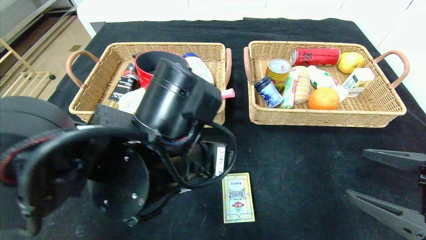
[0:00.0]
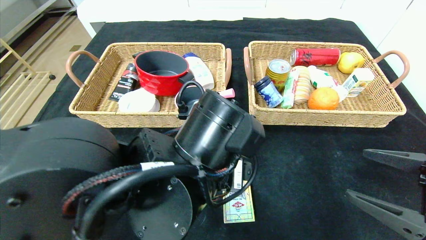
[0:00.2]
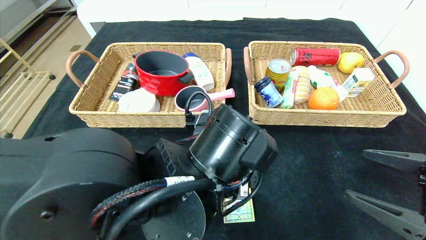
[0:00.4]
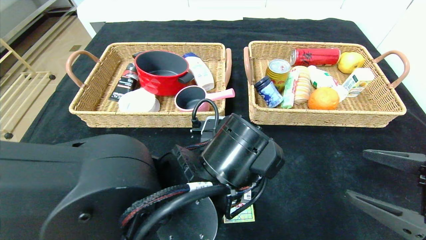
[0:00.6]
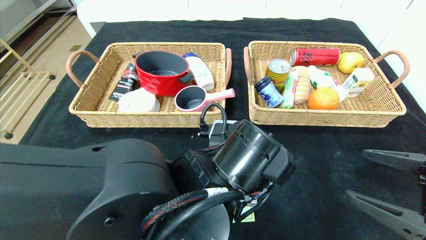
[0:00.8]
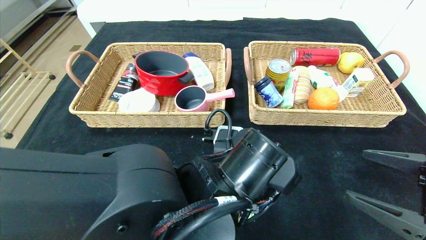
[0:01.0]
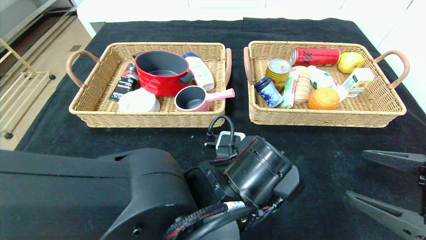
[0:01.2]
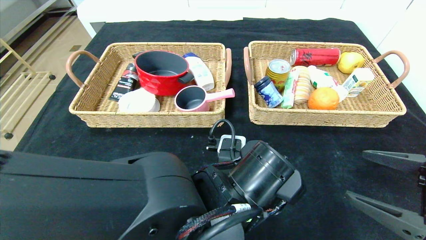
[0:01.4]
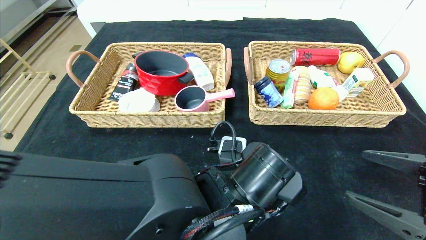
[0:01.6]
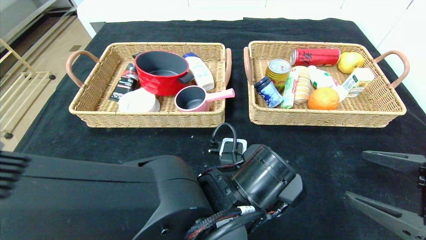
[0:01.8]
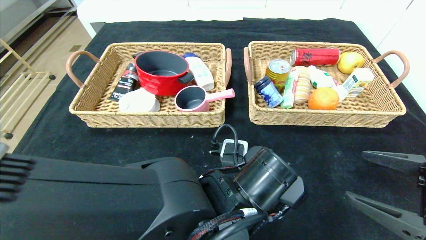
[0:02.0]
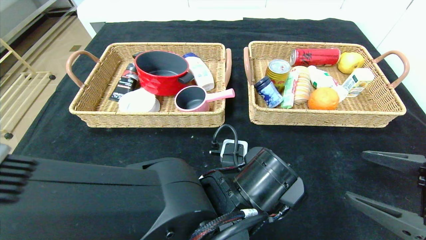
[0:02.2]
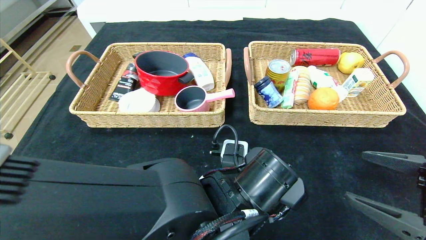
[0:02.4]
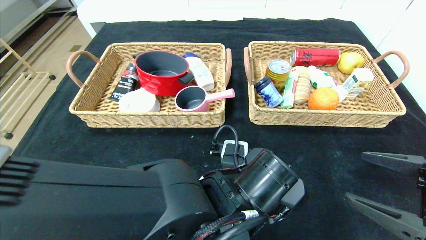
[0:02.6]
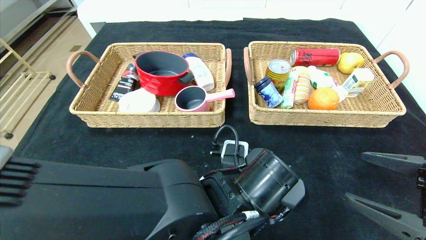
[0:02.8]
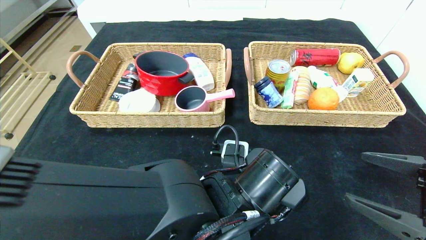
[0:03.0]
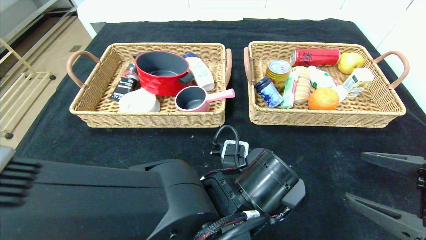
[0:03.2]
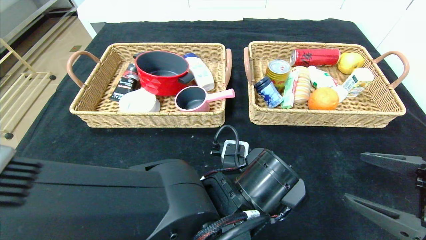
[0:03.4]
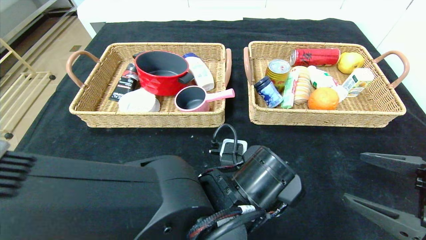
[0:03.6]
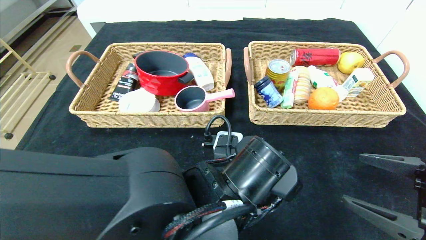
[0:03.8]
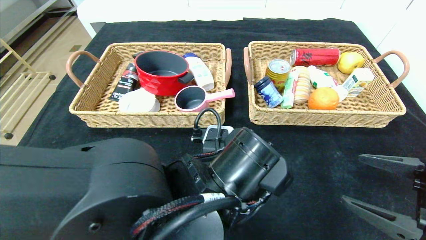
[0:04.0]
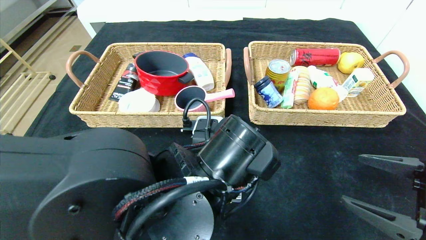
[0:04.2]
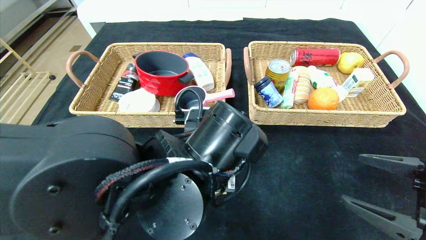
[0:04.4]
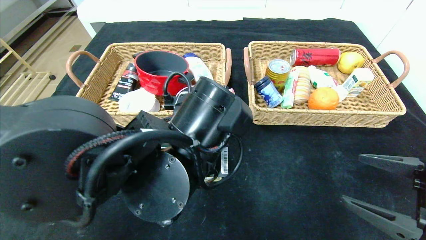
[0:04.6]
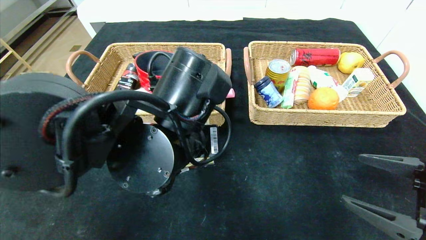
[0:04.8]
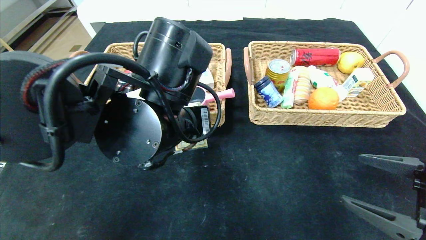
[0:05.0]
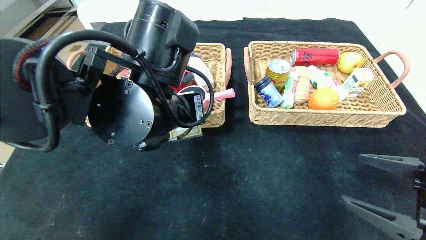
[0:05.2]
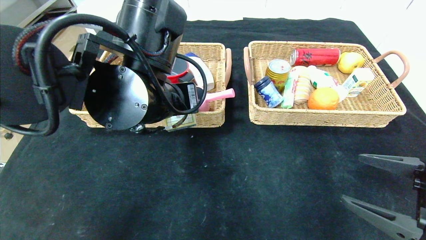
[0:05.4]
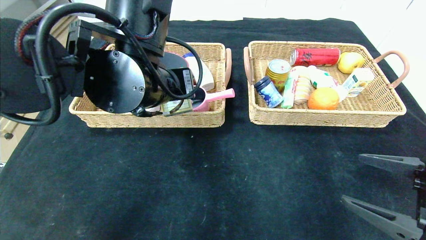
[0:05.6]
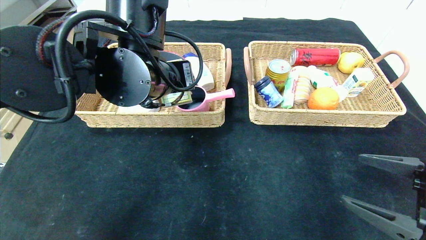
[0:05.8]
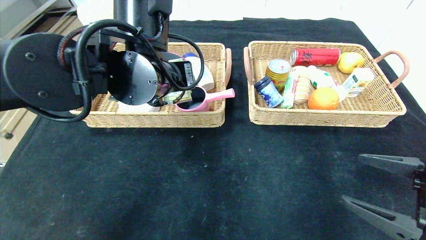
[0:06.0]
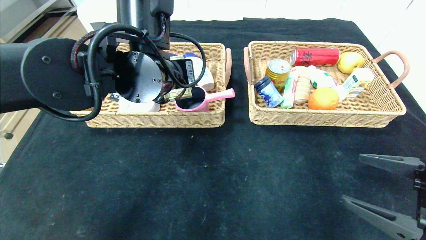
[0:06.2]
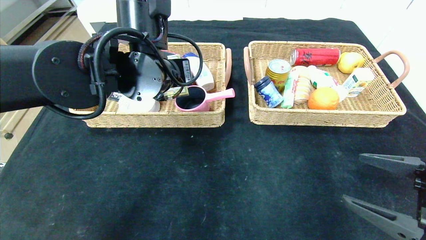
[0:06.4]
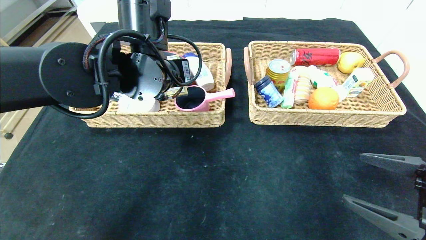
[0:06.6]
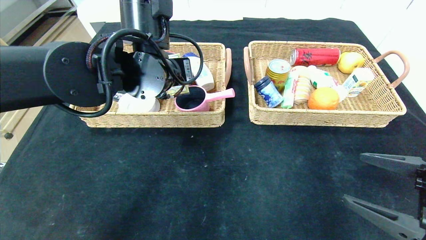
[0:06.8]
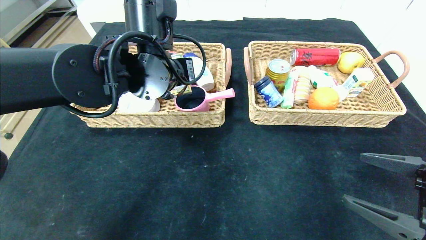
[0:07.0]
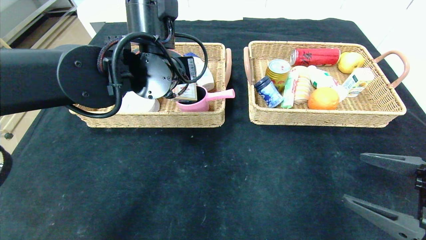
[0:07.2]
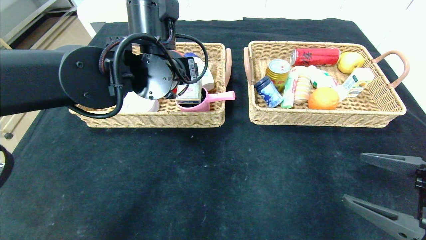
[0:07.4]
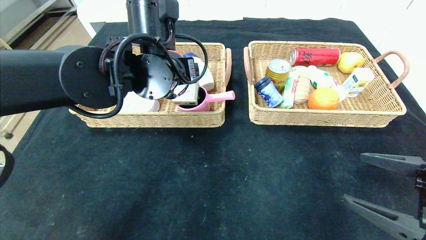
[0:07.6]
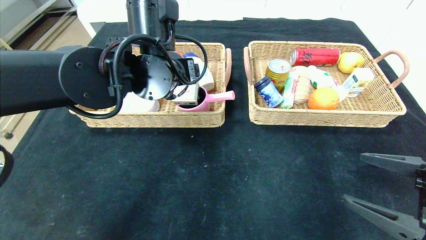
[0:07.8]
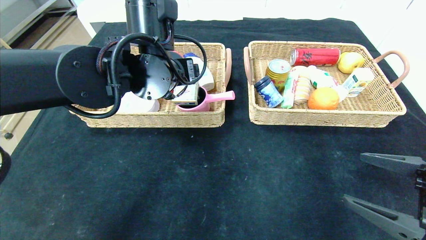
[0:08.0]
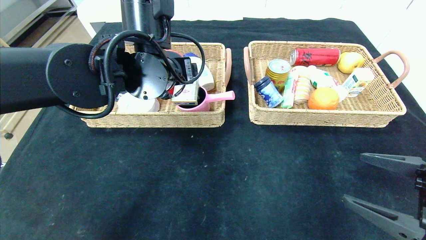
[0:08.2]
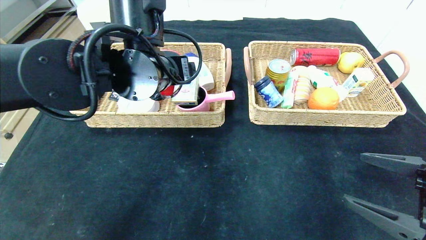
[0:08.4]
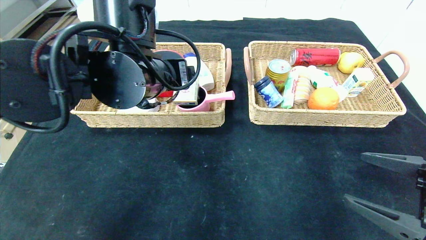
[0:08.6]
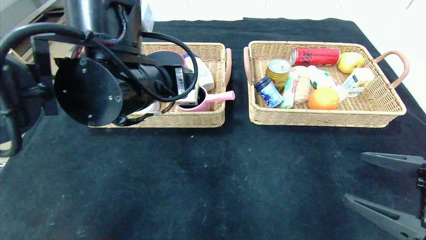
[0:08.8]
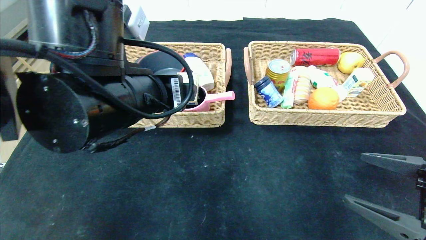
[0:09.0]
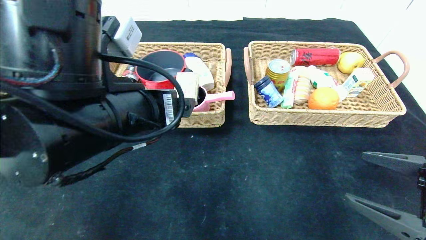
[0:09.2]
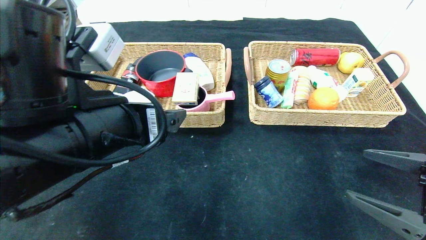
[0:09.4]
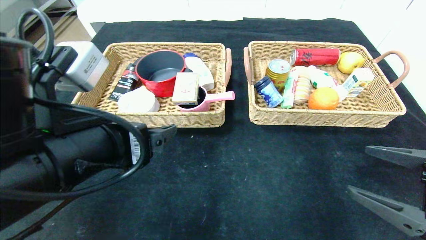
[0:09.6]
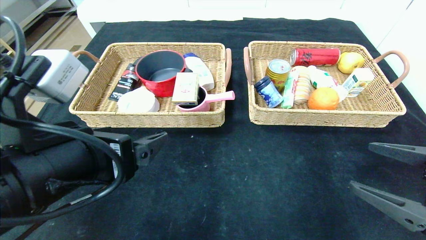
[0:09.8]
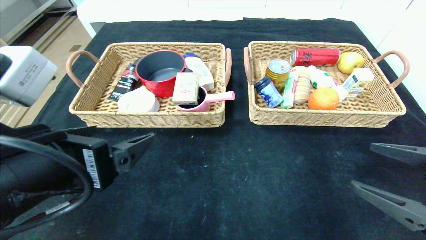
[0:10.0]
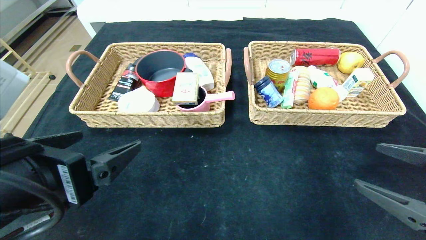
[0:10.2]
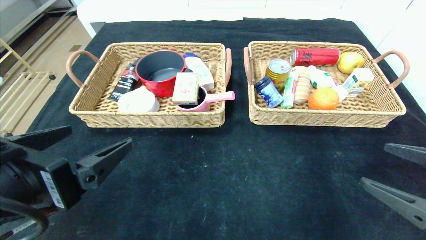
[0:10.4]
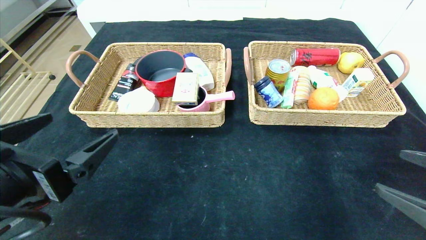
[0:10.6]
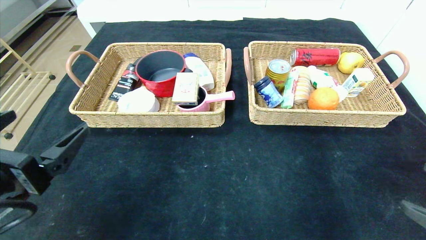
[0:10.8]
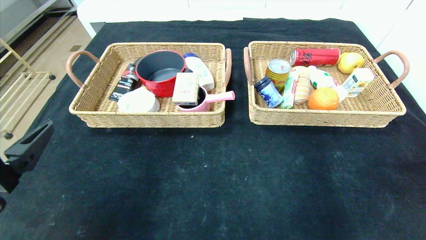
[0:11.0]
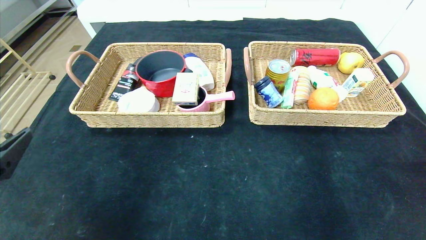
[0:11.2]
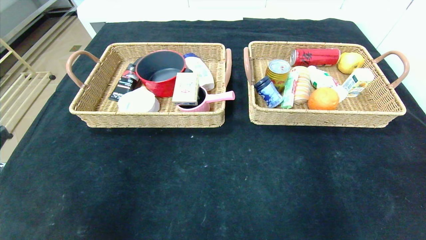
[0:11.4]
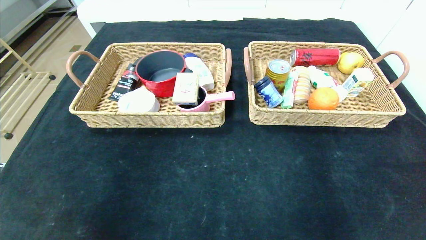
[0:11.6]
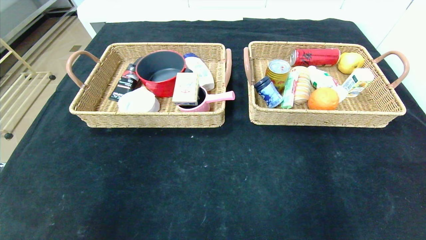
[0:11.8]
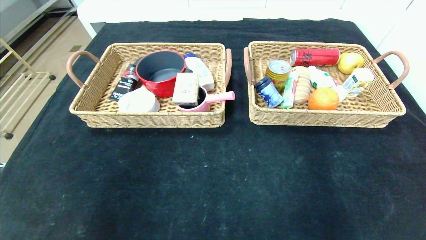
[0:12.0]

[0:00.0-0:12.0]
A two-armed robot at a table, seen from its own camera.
Step, 0:00.0 to 0:07.4: Grasp the playing cards and put it in the left basket.
0:00.0 to 0:01.6: The left gripper travels downward and to the right by about 10 cm.
0:01.6 to 0:03.0: The left gripper closes up.
0:03.0 to 0:04.4: The left gripper heads upward, covering about 5 cm.
0:04.4 to 0:06.0: The left gripper moves forward, upward and to the left, roughly 15 cm.
0:06.0 to 0:07.6: The grippers make only small movements.
0:07.6 to 0:09.0: The left gripper goes roughly 10 cm backward.
0:09.0 to 0:10.4: The left gripper travels backward and to the left by some 15 cm.
0:10.4 to 0:12.0: The right gripper is displaced backward by some 20 cm. Meanwhile the left gripper heads to the left and backward, covering roughly 15 cm.
